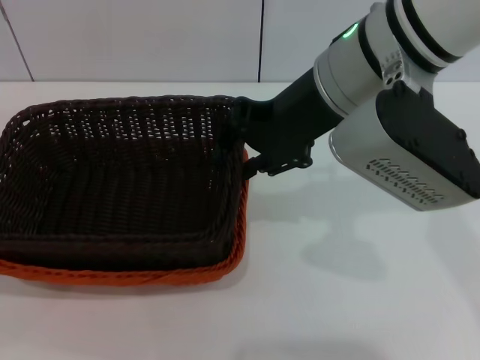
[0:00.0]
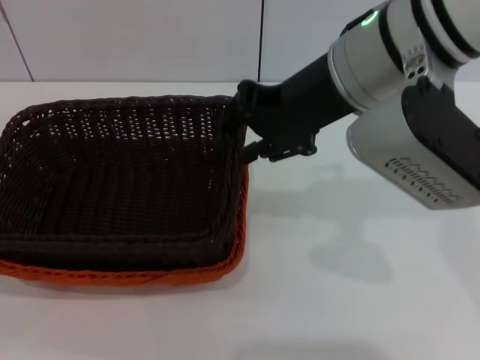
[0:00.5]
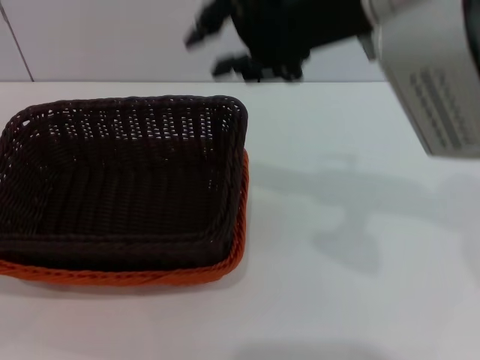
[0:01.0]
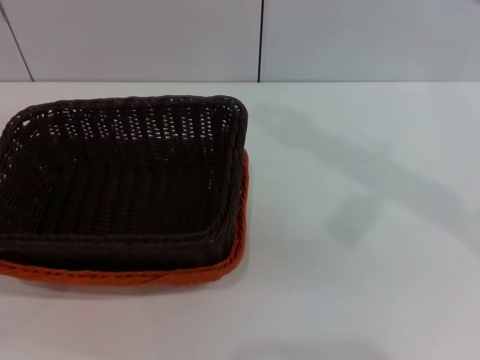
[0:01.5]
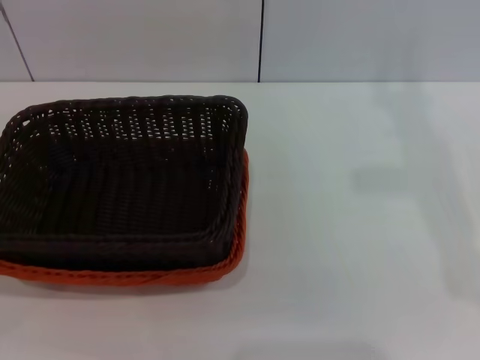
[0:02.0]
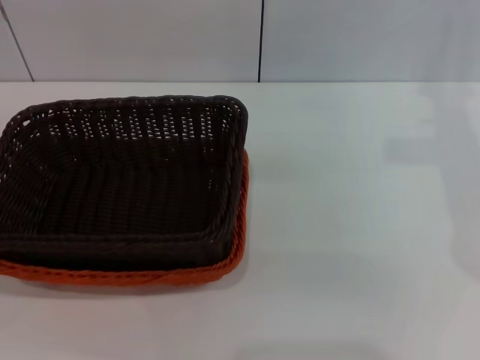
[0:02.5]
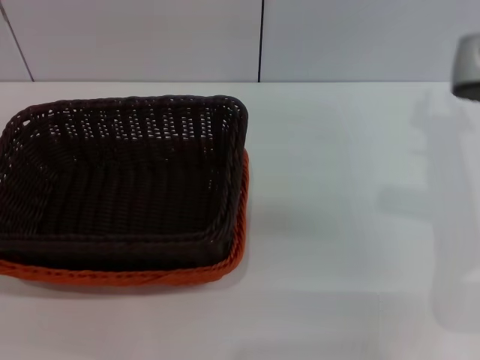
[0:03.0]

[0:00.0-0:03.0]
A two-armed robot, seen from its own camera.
0:00.0 to 0:01.5: The right gripper shifts some 10 cm upward and to the right.
0:01.5 to 0:03.0: The right gripper goes approximately 20 cm downward and to the right.
